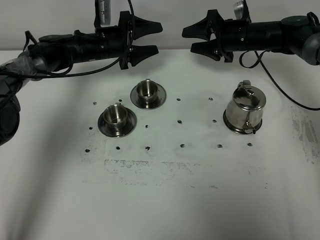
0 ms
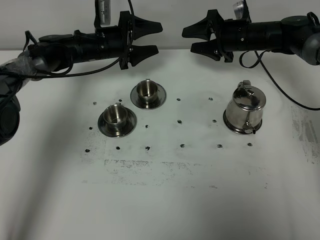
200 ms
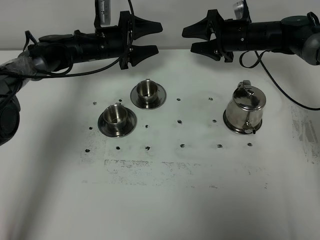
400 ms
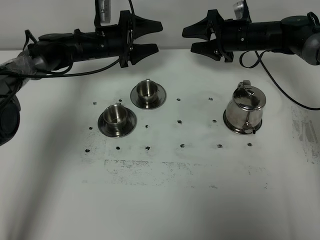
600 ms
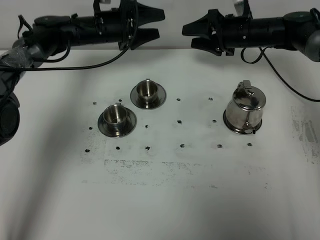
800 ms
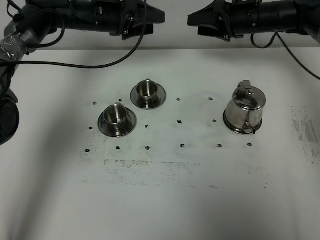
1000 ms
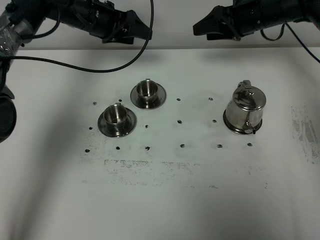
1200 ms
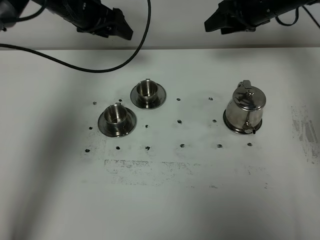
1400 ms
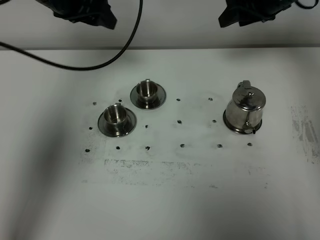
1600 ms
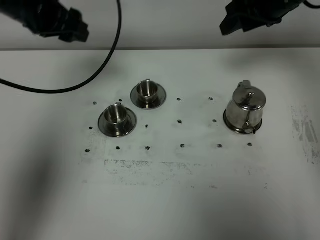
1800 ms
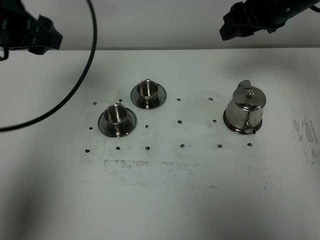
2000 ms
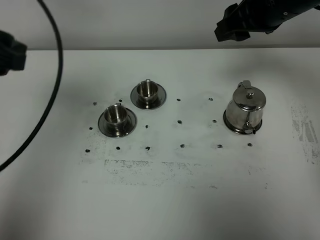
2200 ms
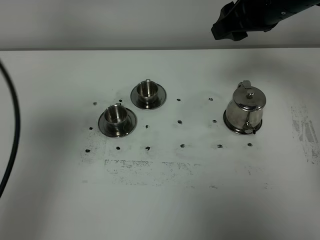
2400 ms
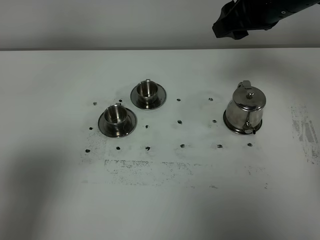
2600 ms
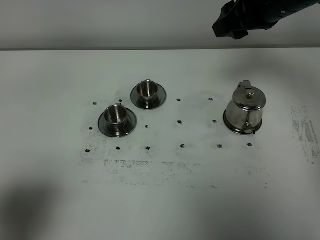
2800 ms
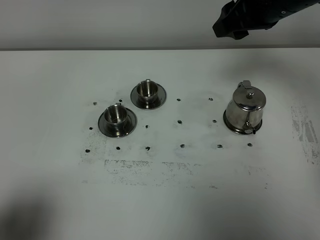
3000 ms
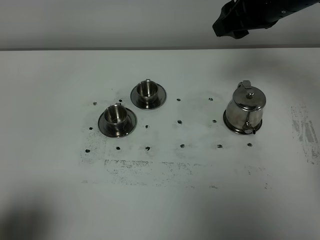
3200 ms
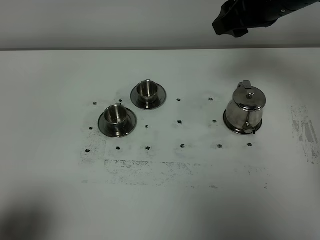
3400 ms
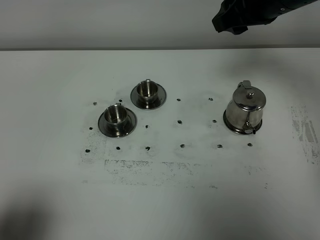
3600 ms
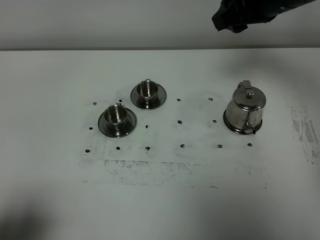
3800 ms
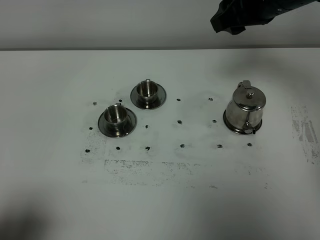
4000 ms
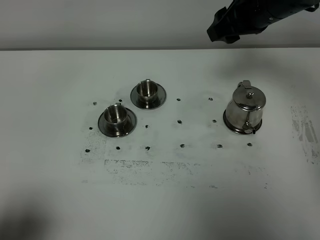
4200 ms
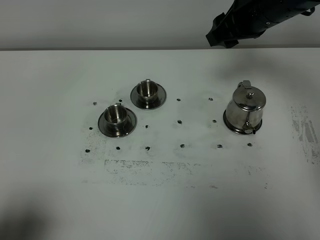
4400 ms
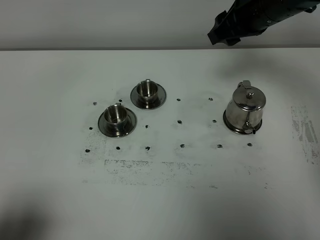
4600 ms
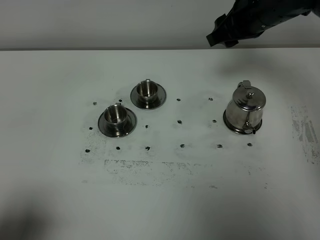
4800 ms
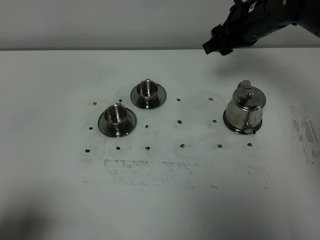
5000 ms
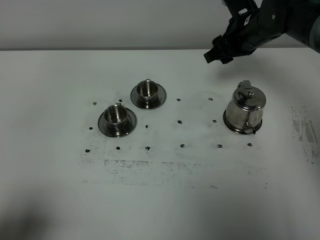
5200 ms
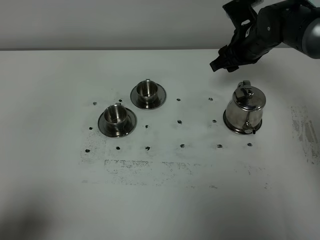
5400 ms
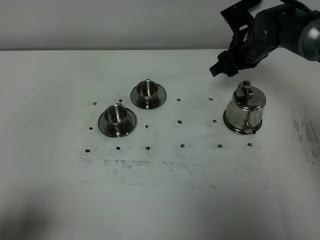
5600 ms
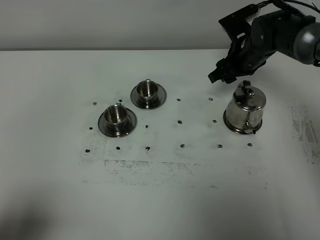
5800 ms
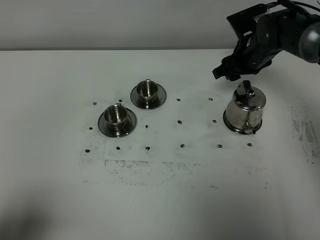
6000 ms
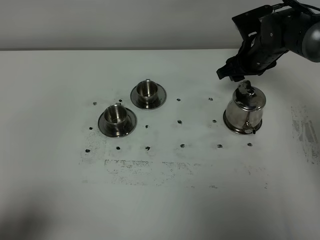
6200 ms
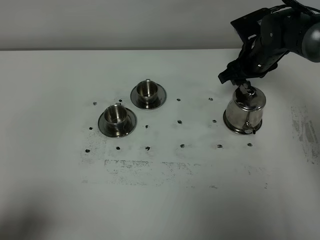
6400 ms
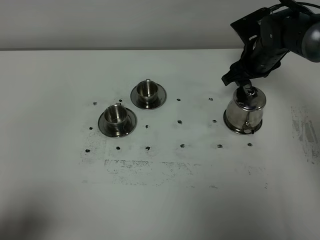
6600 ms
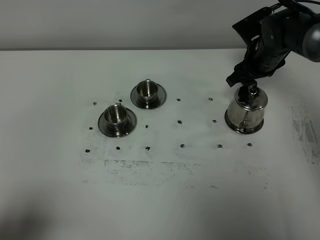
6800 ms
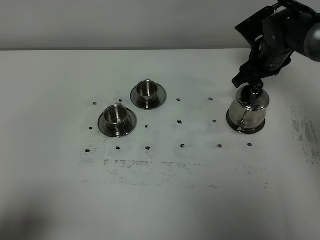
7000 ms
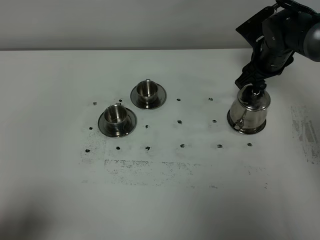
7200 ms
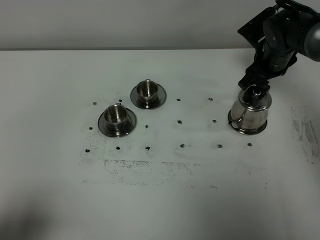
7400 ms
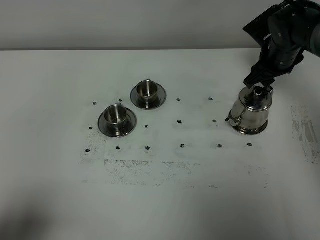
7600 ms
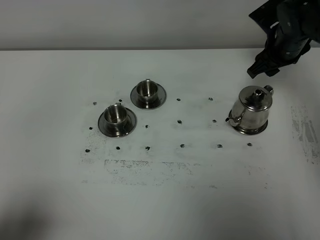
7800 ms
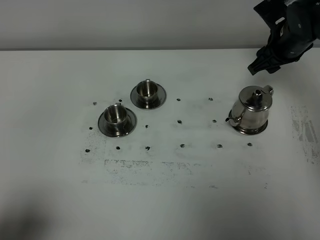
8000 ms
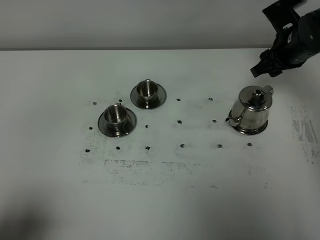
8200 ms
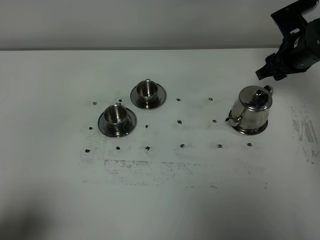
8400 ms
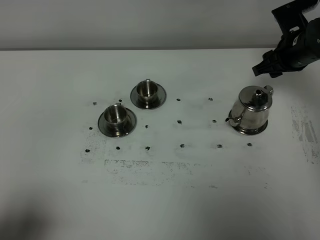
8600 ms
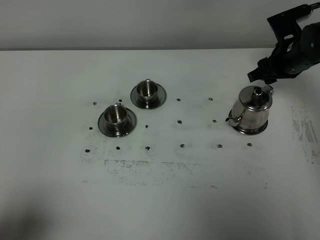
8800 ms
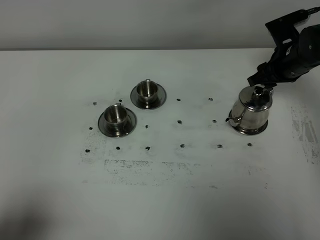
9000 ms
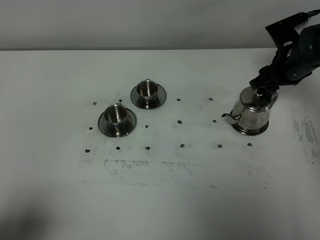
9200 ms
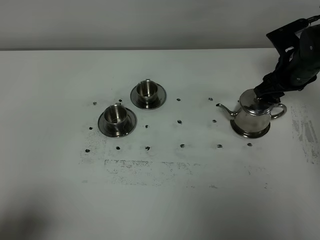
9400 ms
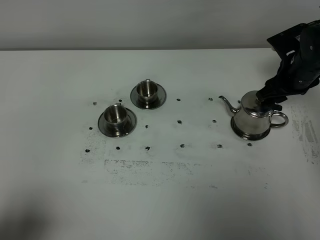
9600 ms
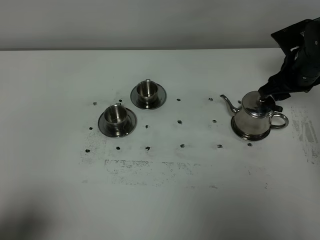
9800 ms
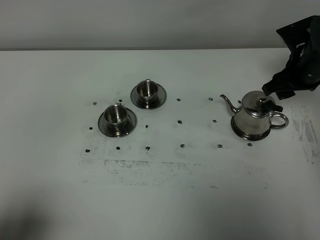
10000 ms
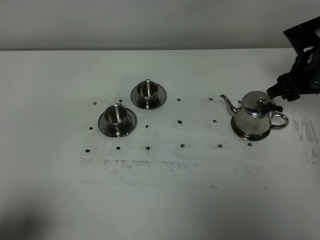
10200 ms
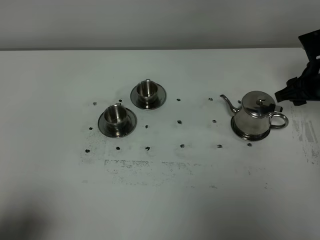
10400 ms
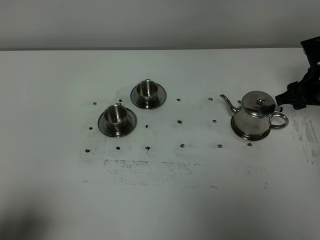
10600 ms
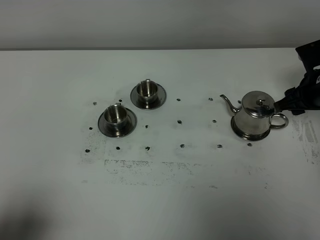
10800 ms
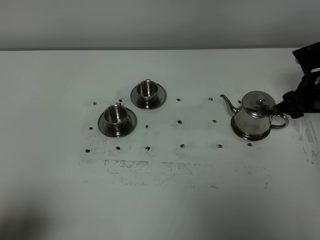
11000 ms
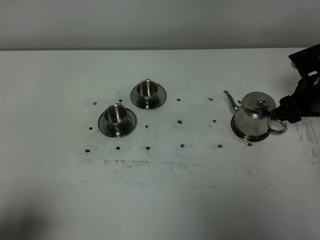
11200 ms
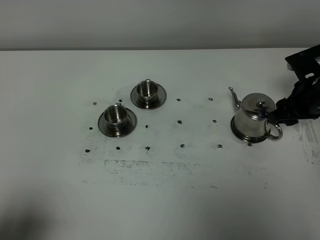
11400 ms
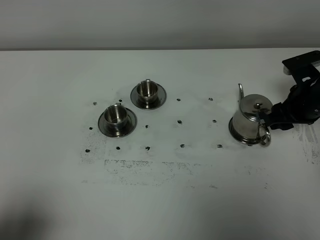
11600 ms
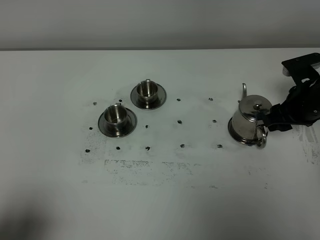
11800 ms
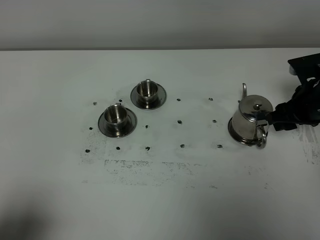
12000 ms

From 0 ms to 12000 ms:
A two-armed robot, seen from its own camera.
Task of the whole recording: grasp the stainless steel teapot and pour the tea into the two stainless steel teacups one by one, put the stainless steel teapot back in its original place.
From 0 ms to 1600 ms: The two grippers go about 15 cm upward.
From 1600 ms to 3000 ms: The left gripper shifts some 40 cm backward. Meanwhile the right gripper goes about 15 cm backward, upward and to the left.
From 3000 ms to 4400 ms: There are only small adjustments of the grippers.
From 4400 ms to 6000 ms: The right gripper is displaced downward and forward by roughly 15 cm.
From 9000 ms to 10400 ms: The right gripper shifts roughly 5 cm backward.
From 10400 ms to 12000 ms: There are only small adjustments of the grippers.

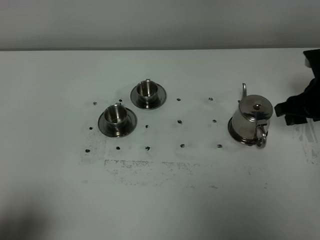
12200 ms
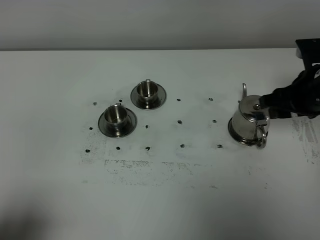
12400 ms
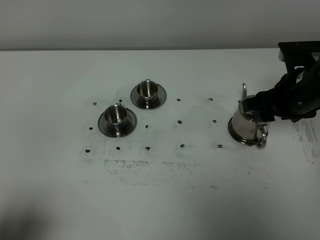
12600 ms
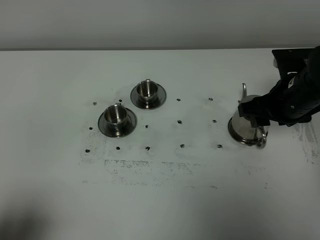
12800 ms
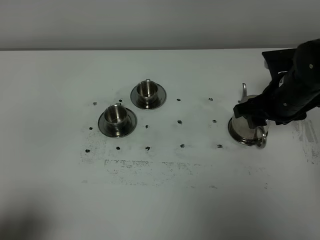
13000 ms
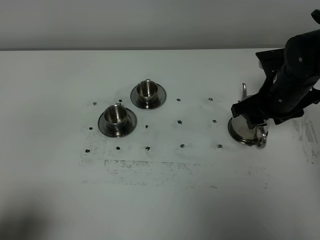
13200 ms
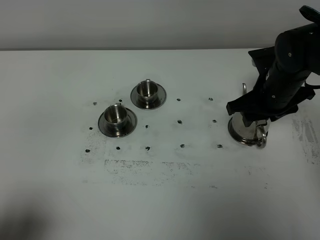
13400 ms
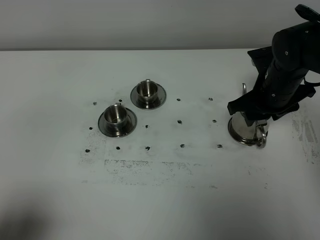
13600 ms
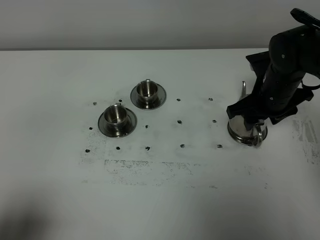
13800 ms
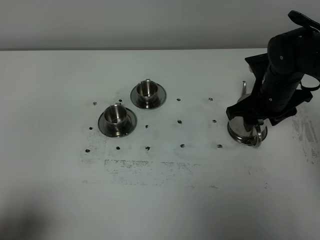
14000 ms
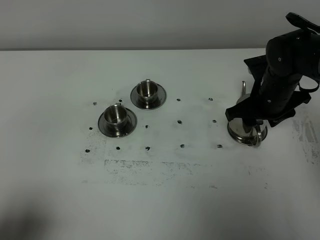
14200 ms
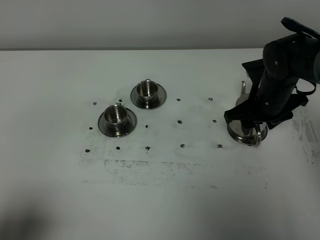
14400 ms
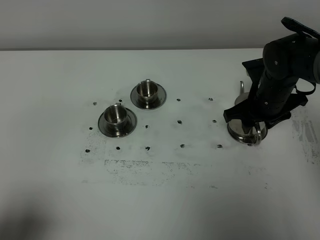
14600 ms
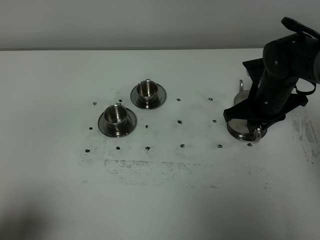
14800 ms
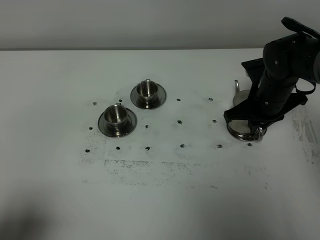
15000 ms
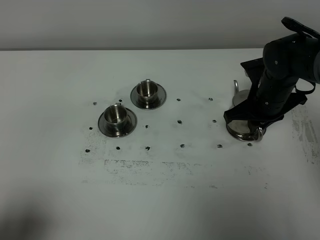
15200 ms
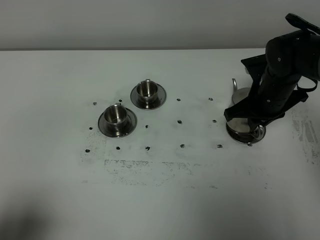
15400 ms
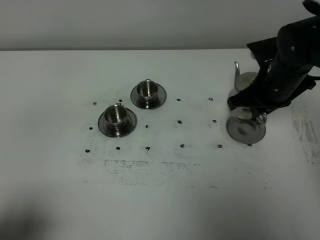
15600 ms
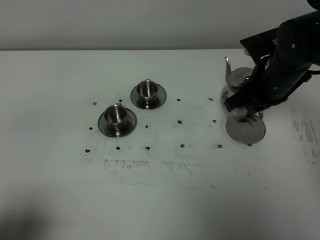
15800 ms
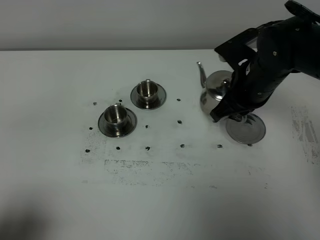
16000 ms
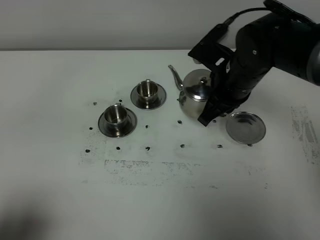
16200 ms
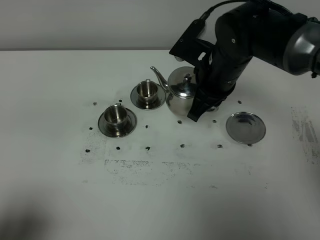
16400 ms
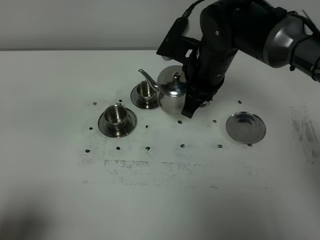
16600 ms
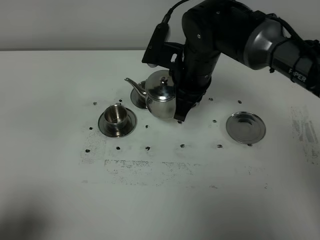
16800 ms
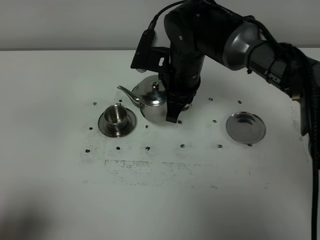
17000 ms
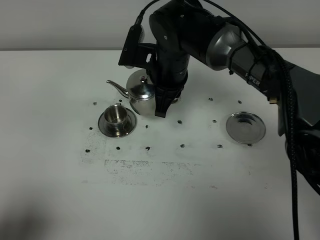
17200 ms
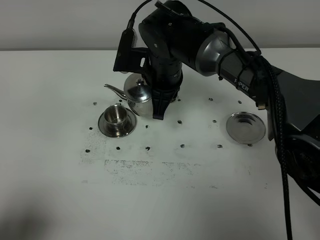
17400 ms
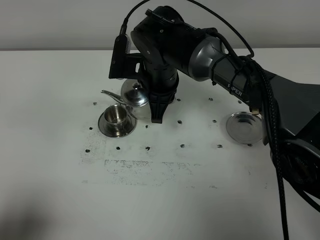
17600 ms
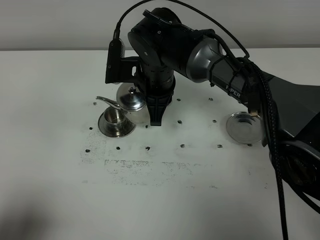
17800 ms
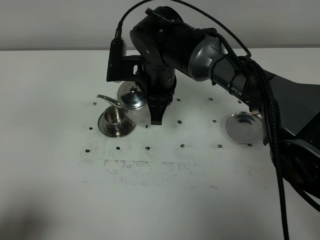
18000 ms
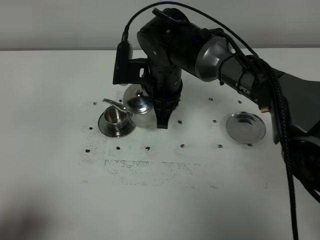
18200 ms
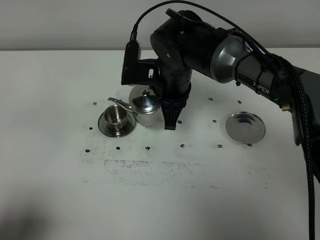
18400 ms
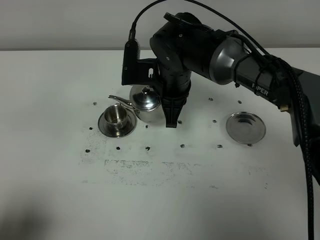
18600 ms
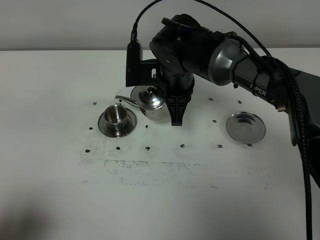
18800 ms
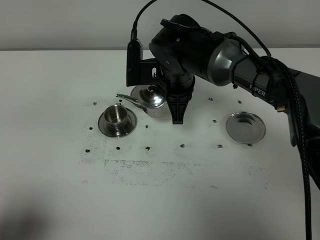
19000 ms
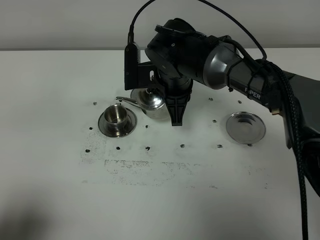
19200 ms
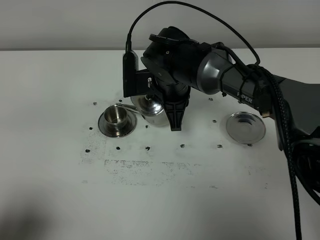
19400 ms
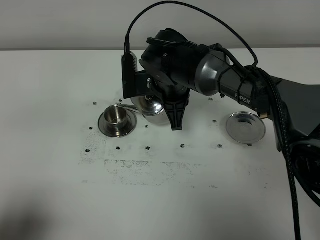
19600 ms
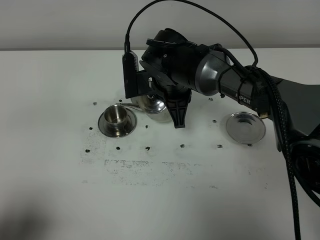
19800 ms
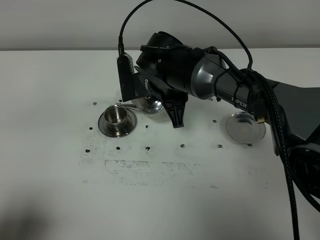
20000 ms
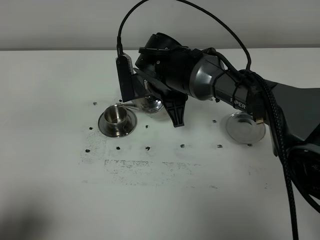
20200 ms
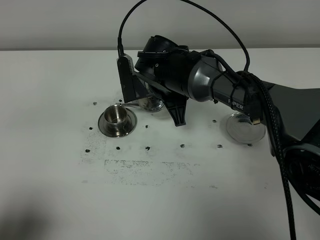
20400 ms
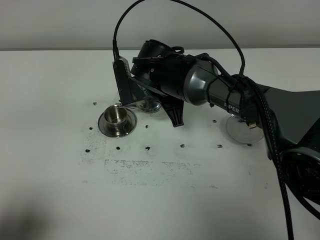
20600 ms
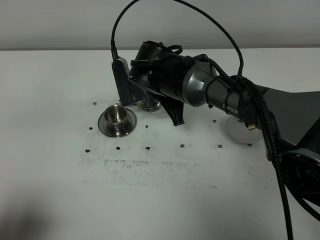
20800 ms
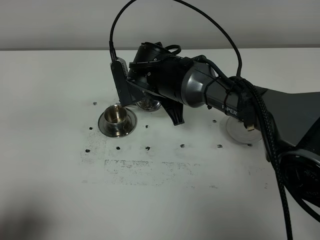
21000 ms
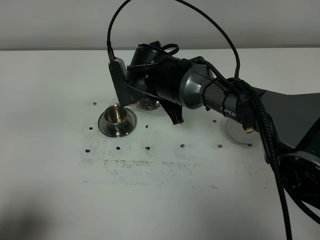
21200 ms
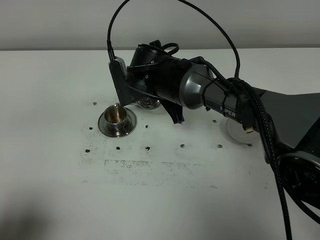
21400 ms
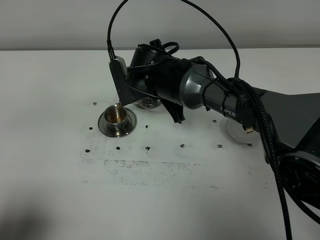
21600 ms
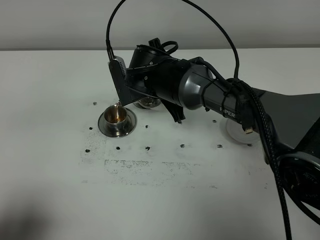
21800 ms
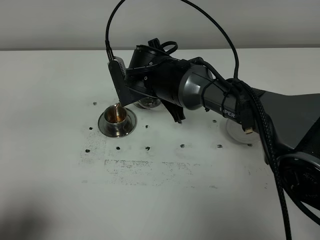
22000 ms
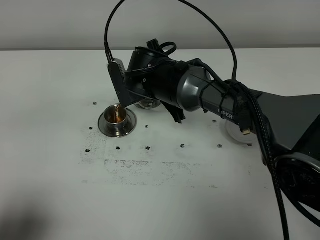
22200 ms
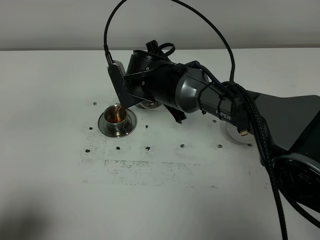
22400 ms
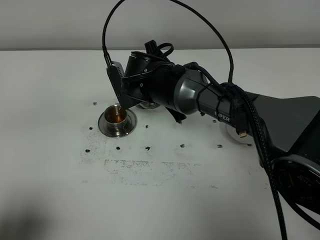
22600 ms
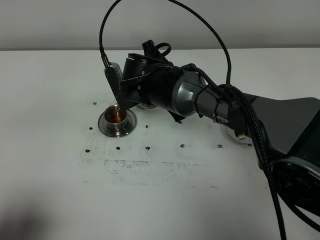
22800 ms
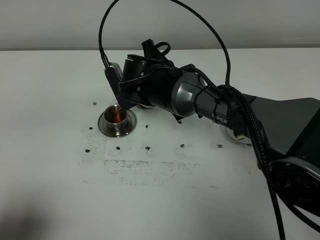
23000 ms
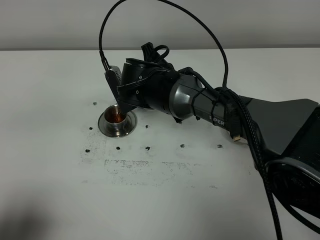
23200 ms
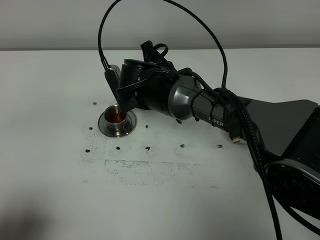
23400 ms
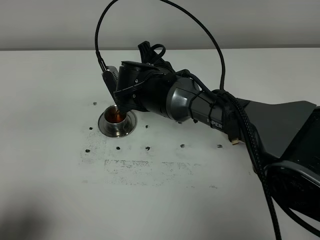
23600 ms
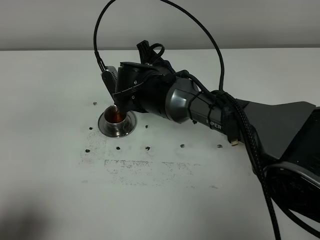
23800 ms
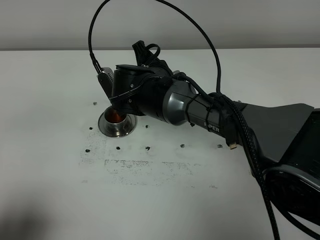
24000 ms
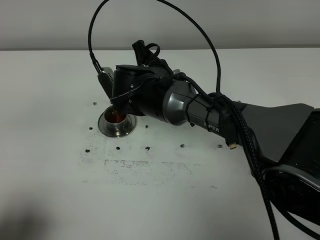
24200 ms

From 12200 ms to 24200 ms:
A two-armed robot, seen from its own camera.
Task of the whole recording: grasp the stainless steel teapot and pour the tea into the two stainless steel teacups one by one, put the stainless steel teapot back in its original place.
Step, from 12200 ms to 15200 ms: Pick up the teapot with the right gripper.
From 12200 ms to 13800 ms: The right gripper shifts approximately 10 cm to the left.
From 13800 ms to 15200 ms: The right gripper closes up.
From 15200 ms to 16600 ms: The right gripper goes roughly 15 cm to the left and upward.
From 16600 ms to 18200 ms: The right gripper moves to the left, approximately 5 cm.
From 18200 ms to 19800 ms: The grippers move only a little.
From 19800 ms to 21200 ms: The grippers move only a little.
From 21200 ms to 24200 ms: There are only small adjustments of the grippers.
